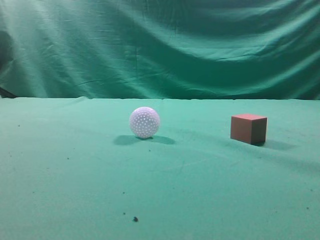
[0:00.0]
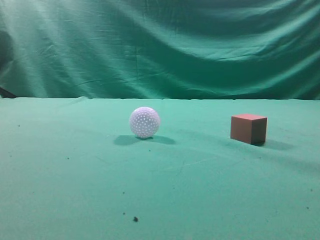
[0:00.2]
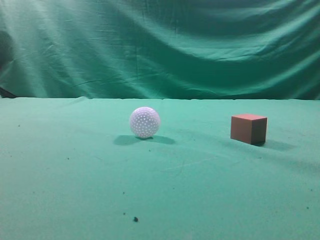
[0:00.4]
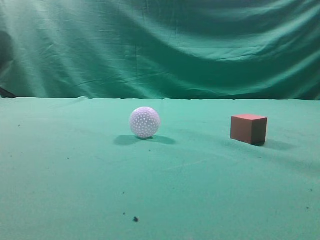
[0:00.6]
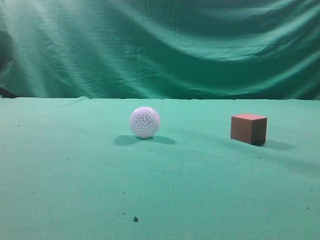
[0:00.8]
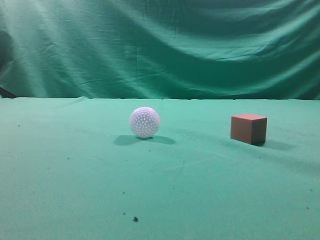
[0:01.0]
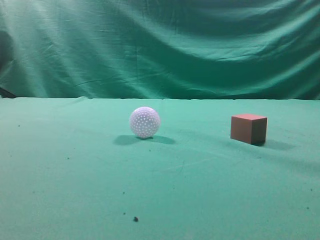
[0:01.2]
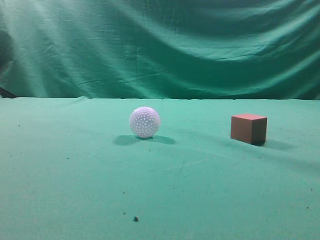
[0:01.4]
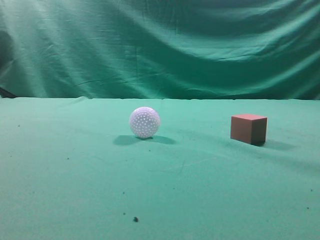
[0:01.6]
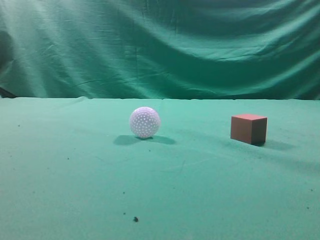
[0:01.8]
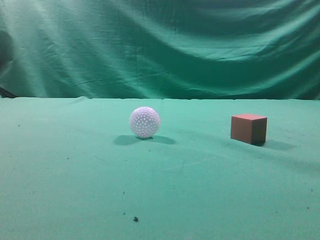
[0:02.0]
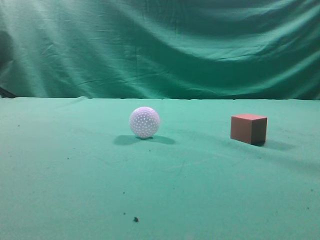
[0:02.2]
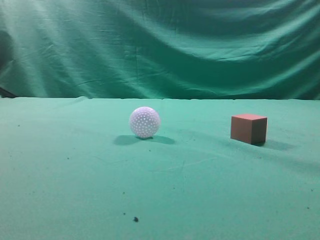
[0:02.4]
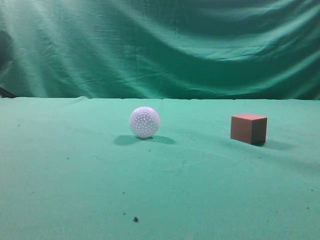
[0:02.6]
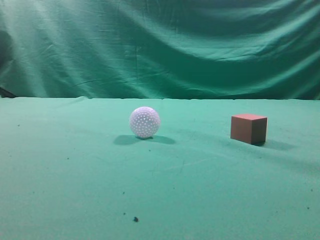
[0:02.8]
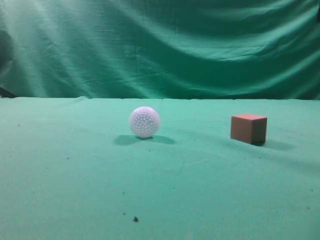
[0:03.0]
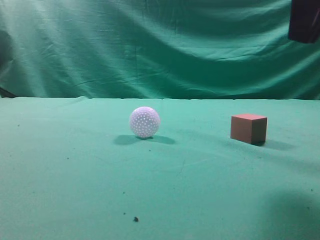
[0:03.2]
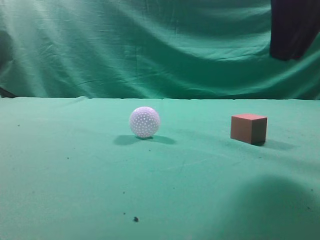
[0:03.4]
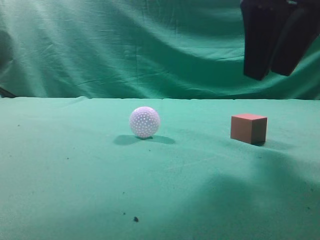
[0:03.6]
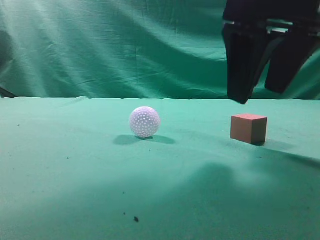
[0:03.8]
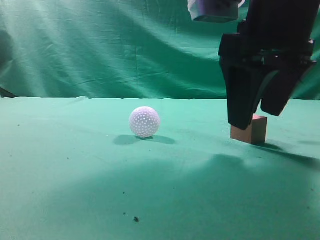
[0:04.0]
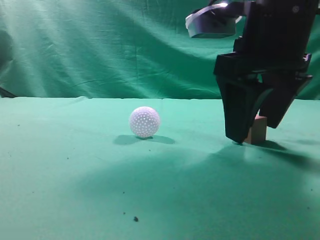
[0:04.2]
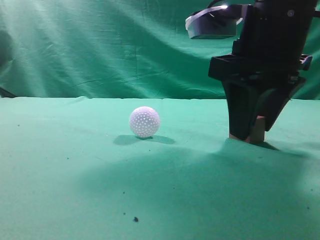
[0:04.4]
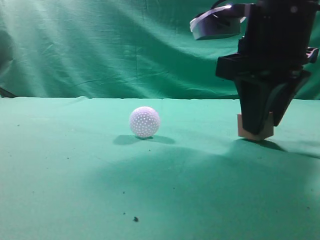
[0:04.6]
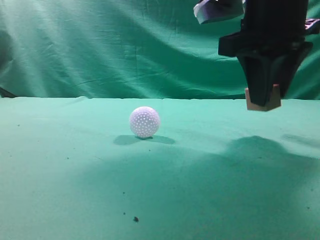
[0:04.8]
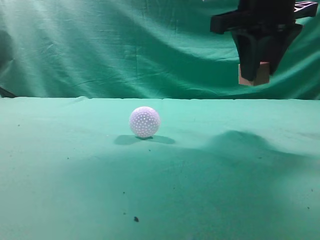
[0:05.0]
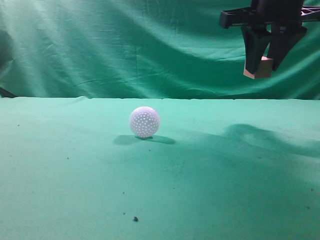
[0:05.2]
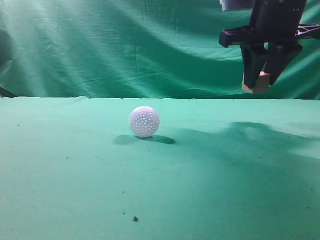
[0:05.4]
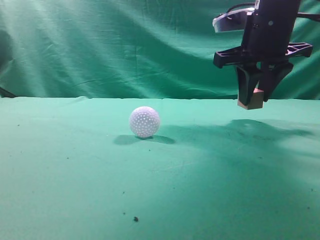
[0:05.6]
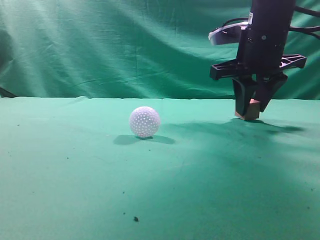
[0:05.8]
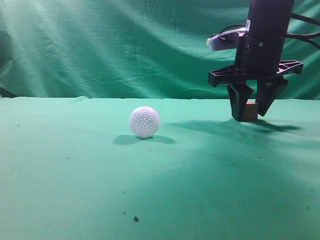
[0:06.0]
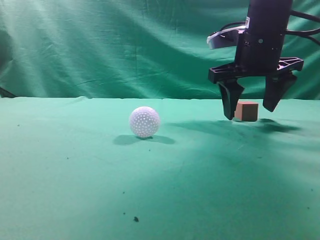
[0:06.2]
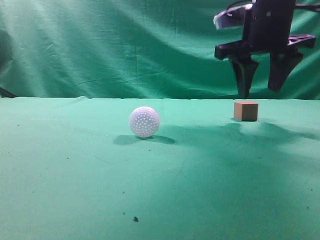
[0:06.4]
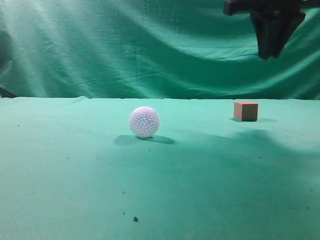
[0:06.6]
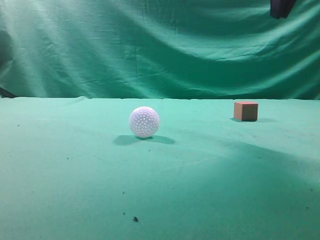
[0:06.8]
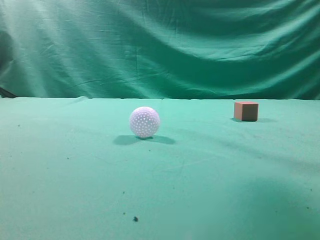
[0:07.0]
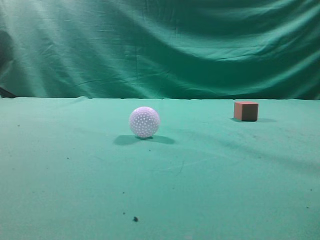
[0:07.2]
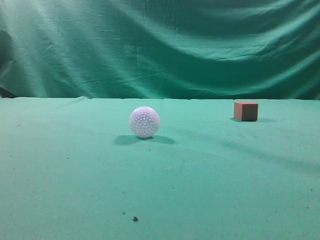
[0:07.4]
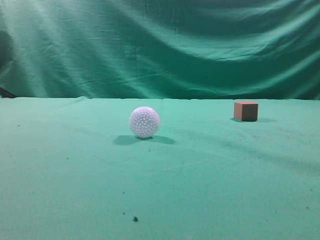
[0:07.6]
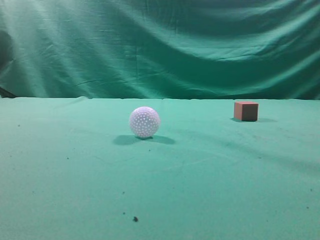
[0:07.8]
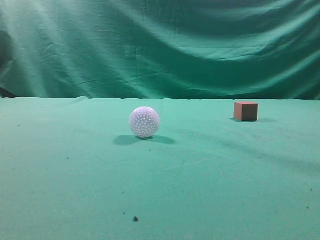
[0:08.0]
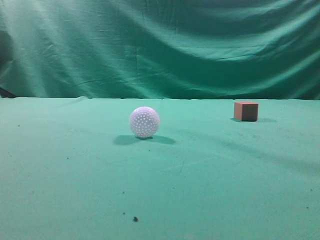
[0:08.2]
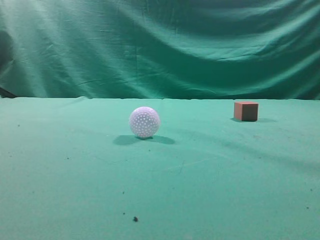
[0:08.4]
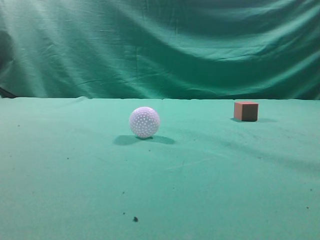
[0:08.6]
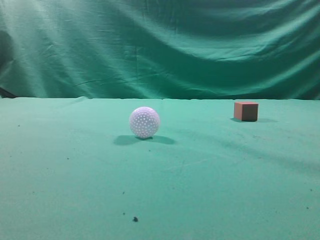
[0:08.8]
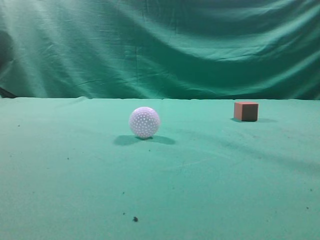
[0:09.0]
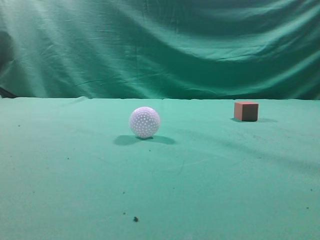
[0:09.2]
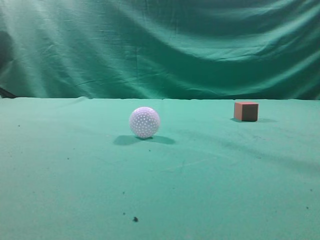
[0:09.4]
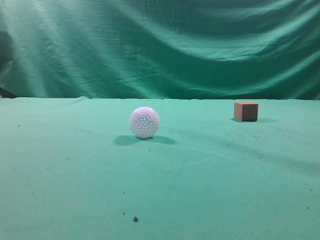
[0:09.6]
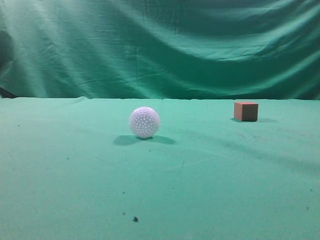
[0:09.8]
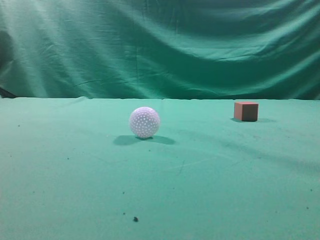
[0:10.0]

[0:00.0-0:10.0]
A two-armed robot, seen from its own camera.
Task of the whole recording: pick up the cube block and place it in another position on the table.
Step, 0:00.0 to 0:04.6: Pick up the small cube.
Step, 0:04.8 to 0:06.0: Place the small cube on the ahead of the table.
0:02.8 to 0:04.2: The right gripper travels downward, forward and to the left by about 15 cm, and opens its fingers.
0:04.2 to 0:05.8: The right gripper travels forward by approximately 10 cm, and closes up.
0:05.8 to 0:07.2: The right gripper is displaced backward and upward by about 25 cm, and closes up.
